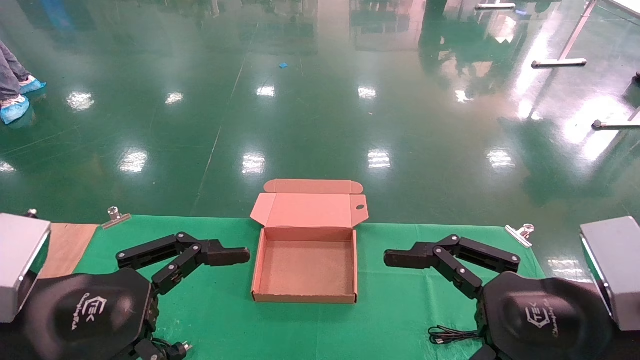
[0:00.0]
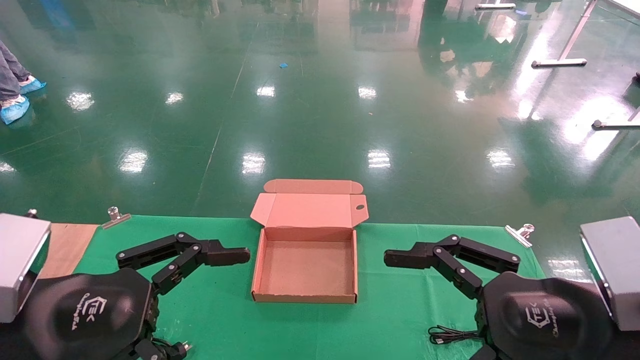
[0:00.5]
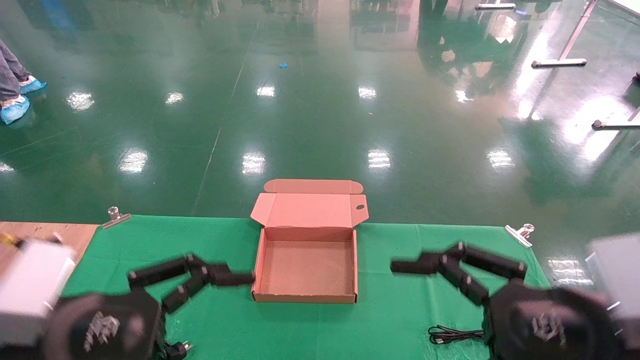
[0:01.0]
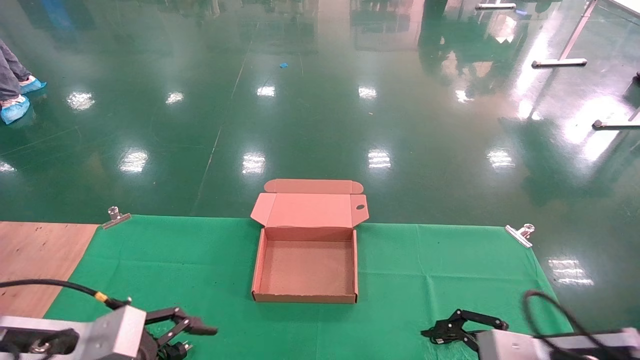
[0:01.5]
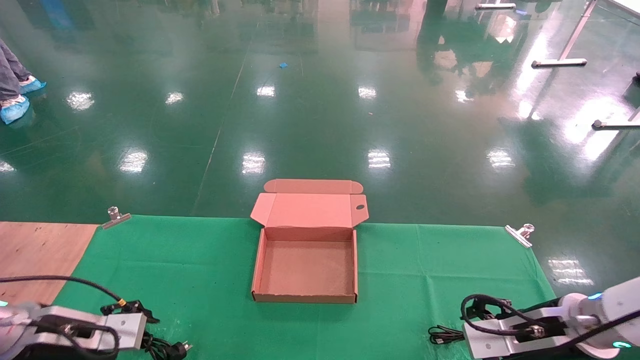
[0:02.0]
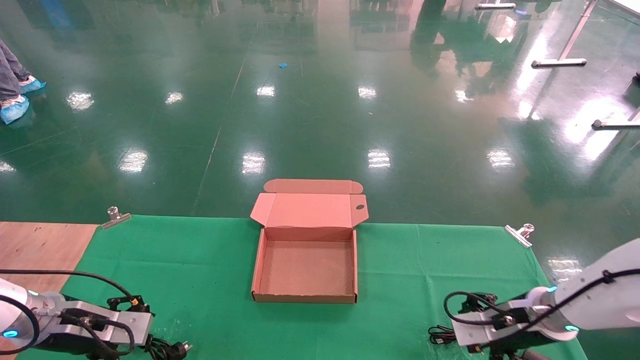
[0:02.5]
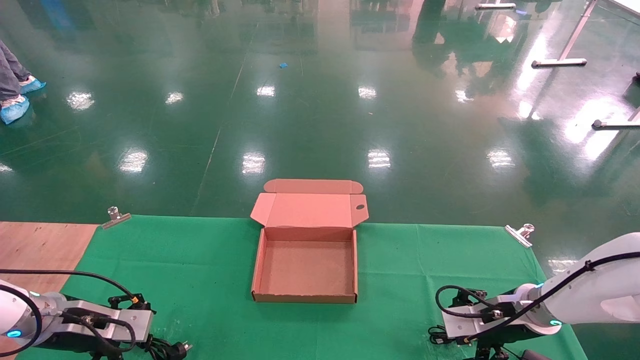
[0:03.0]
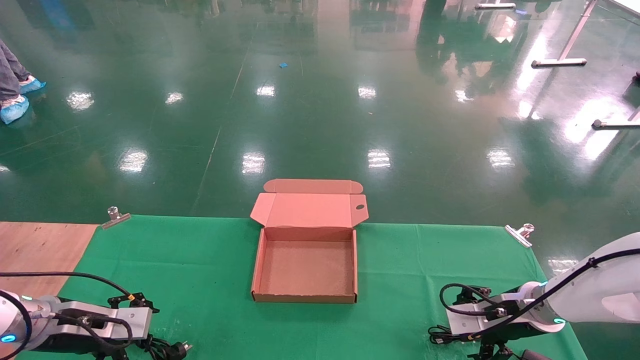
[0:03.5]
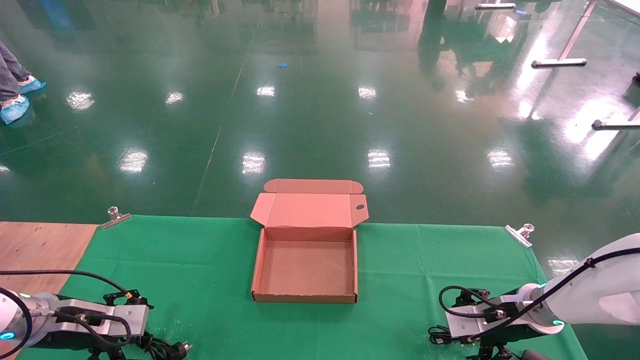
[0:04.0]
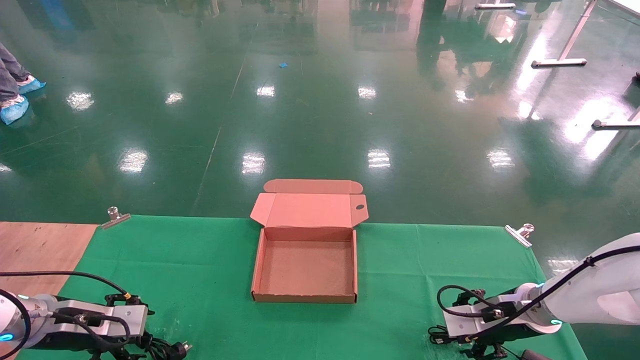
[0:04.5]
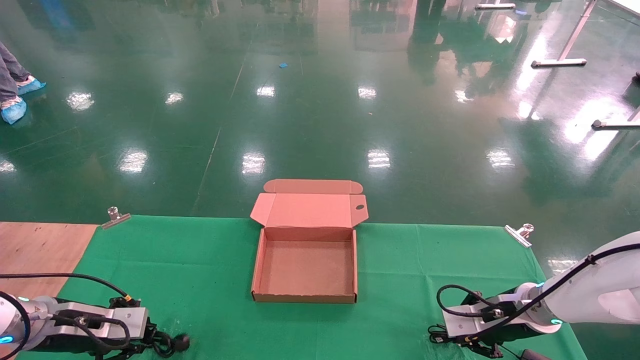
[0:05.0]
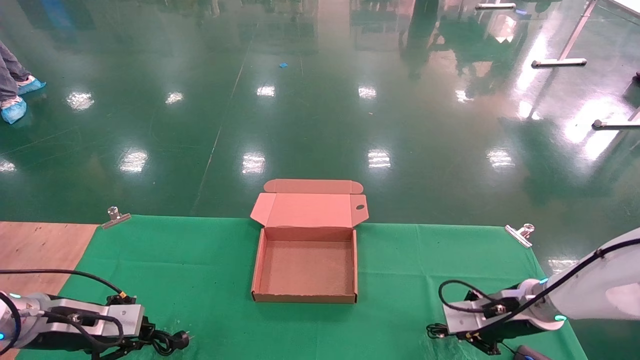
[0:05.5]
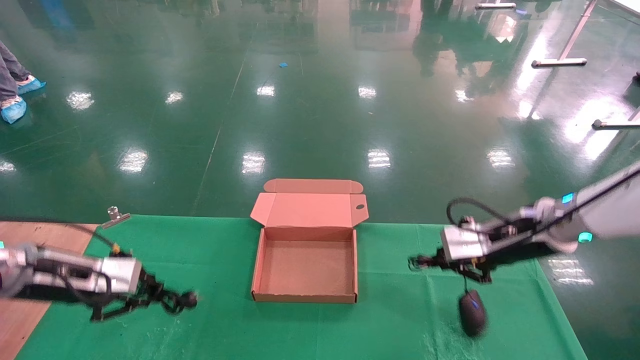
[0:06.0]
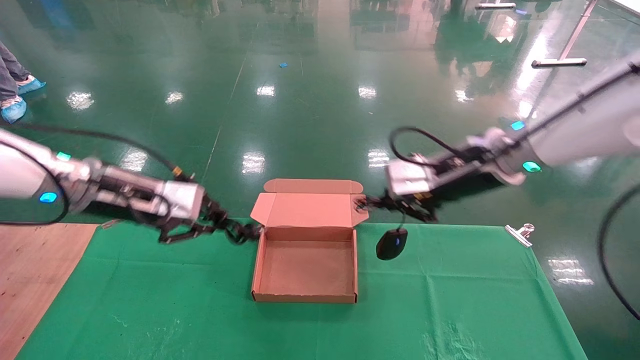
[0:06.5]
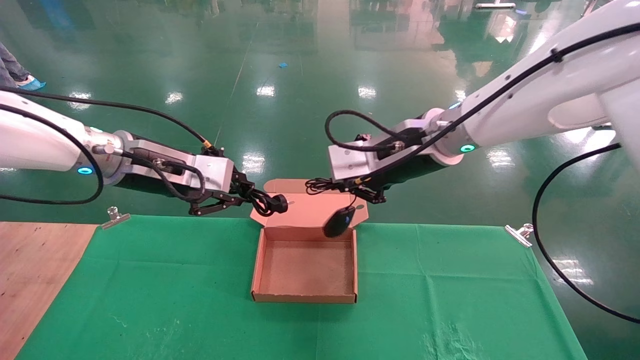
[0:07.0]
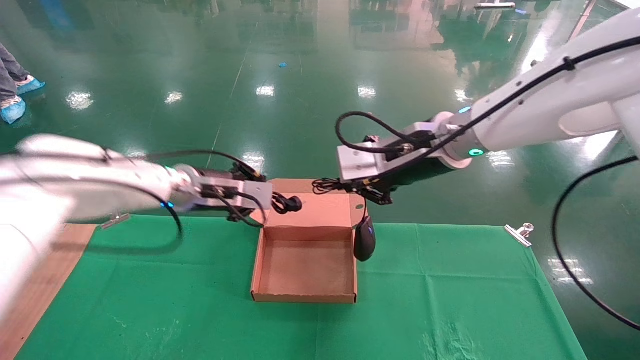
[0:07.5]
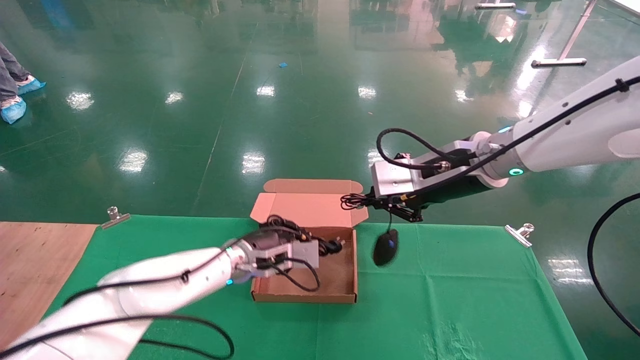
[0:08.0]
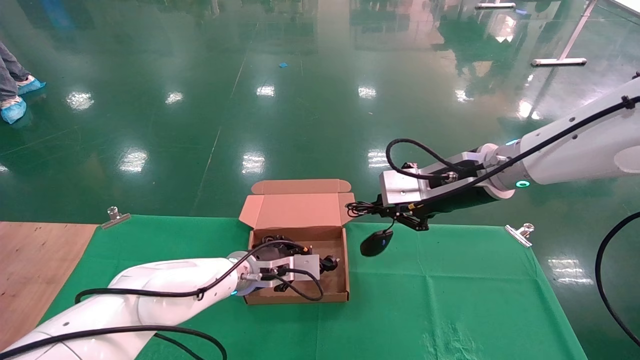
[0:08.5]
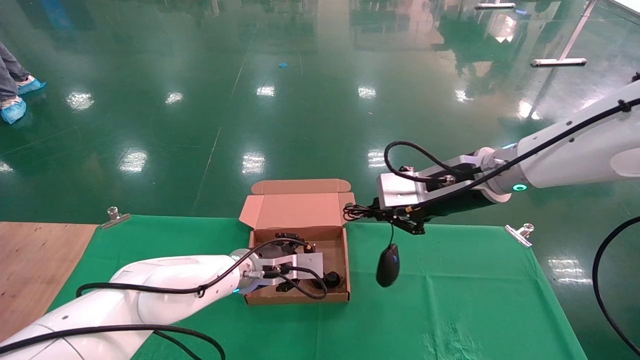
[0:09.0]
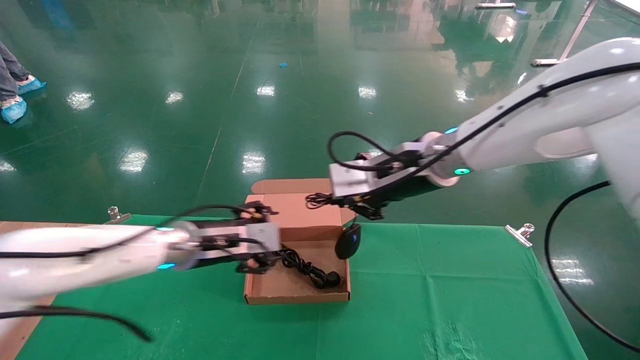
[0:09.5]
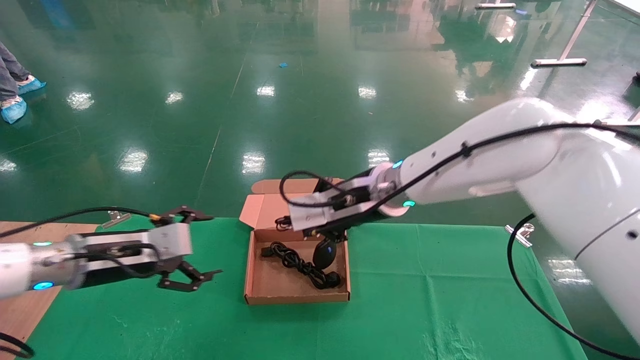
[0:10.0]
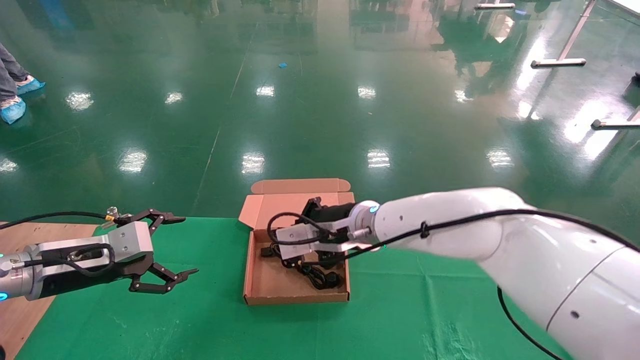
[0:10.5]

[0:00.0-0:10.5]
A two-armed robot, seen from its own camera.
Step, 0:02.0 to 0:05.5: Grab and lift both the mouse and power cord from the accessory packaging area at the same time.
0:00.0 to 0:02.0: The left gripper shifts roughly 20 cm forward, downward and to the left, while the right gripper heads forward and downward, covering approximately 20 cm.
0:02.0 to 0:04.0: The right gripper heads forward, covering about 10 cm; the left gripper shifts by about 5 cm.
0:04.0 to 0:06.5: The left gripper travels upward and to the right by some 25 cm, and closes. Meanwhile the right gripper heads upward and to the left, covering some 25 cm, and closes.
0:06.5 to 0:08.5: The left gripper moves downward, to the right and forward, some 25 cm.
0:08.5 to 0:10.5: The left gripper is displaced to the left and backward by approximately 25 cm, and opens; the right gripper travels to the left and downward by about 20 cm.

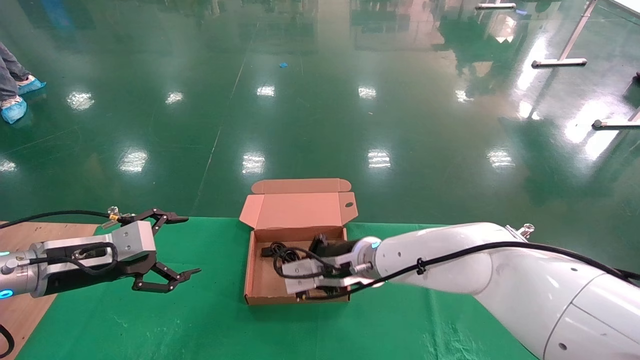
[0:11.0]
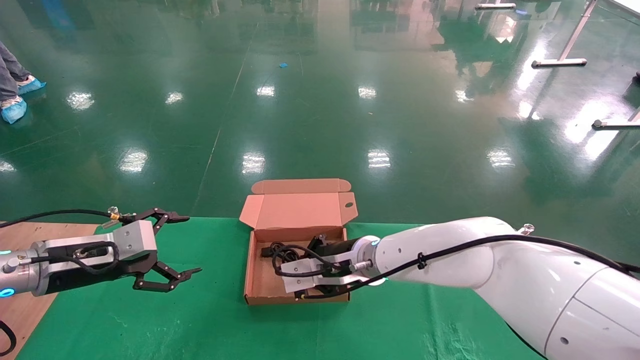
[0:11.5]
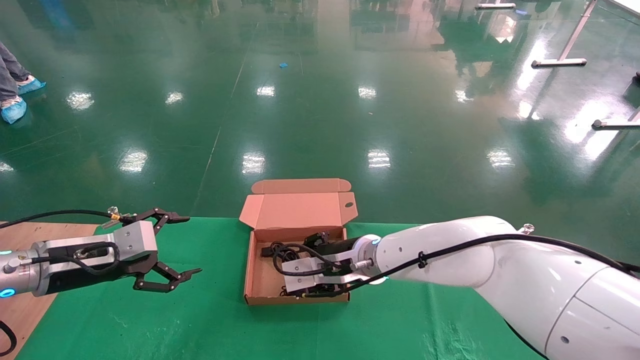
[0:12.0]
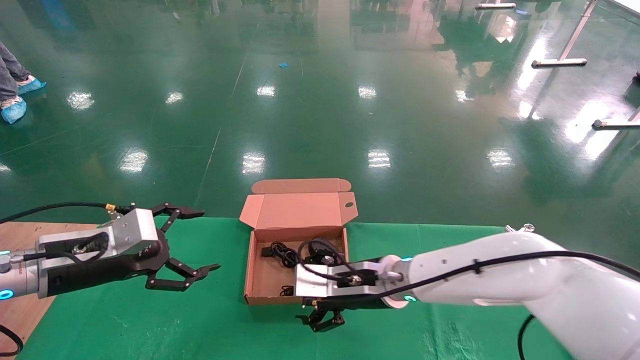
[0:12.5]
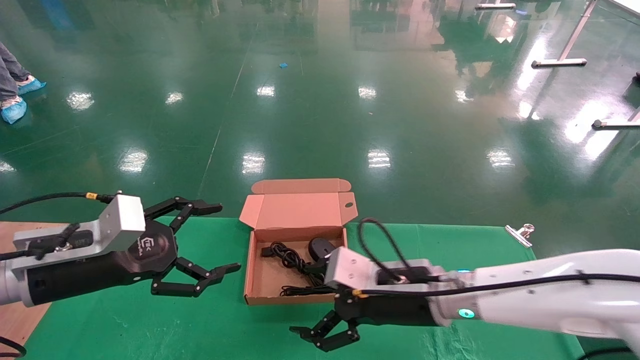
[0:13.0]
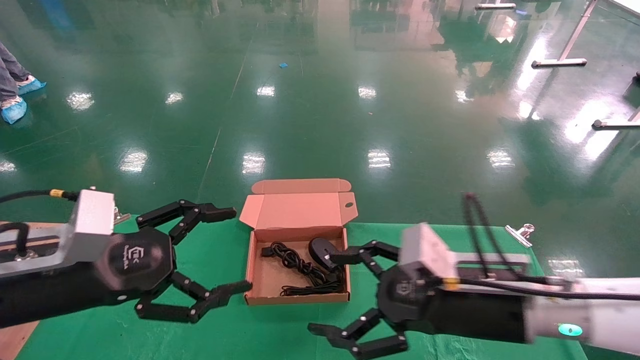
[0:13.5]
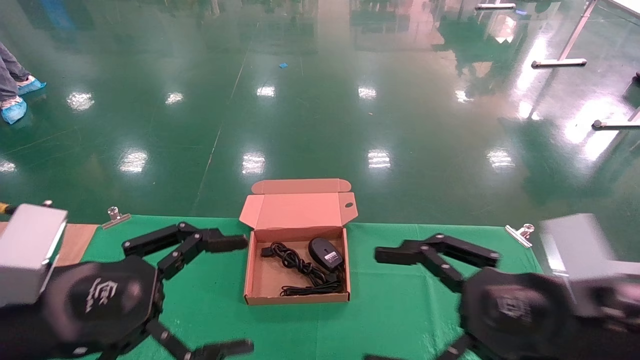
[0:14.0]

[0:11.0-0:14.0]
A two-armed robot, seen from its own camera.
0:11.0 to 0:12.5: The right gripper shifts by approximately 5 cm, and opens up.
0:12.5 to 0:14.0: The right gripper heads backward, to the right and upward, covering about 30 cm, while the left gripper shifts some 15 cm backward and to the right.
